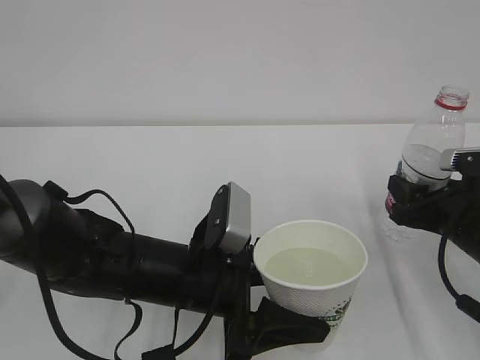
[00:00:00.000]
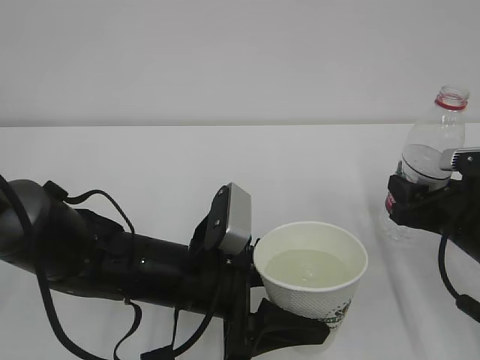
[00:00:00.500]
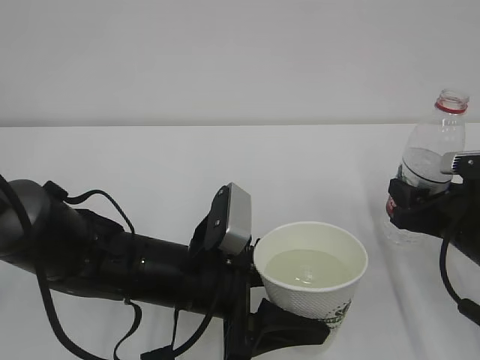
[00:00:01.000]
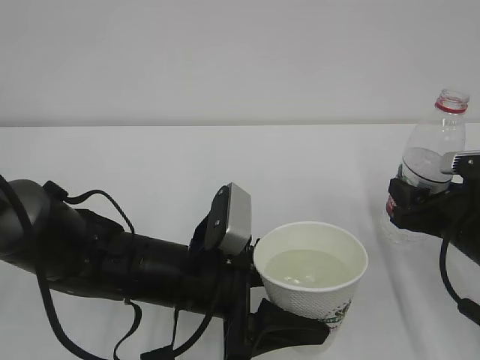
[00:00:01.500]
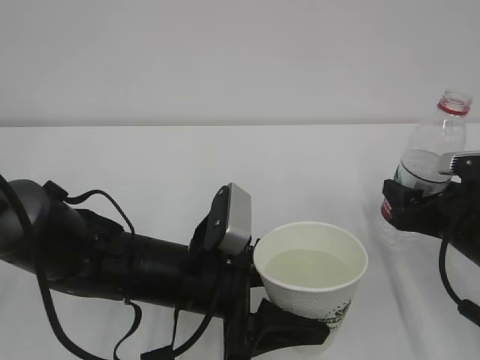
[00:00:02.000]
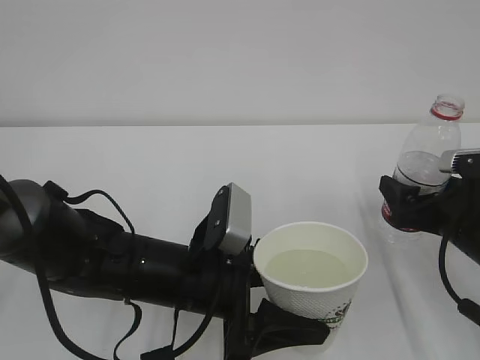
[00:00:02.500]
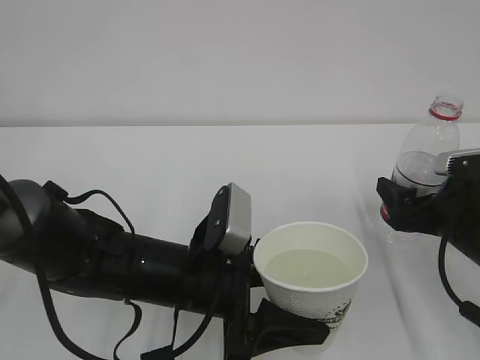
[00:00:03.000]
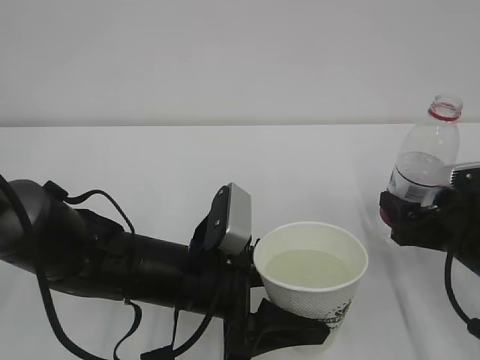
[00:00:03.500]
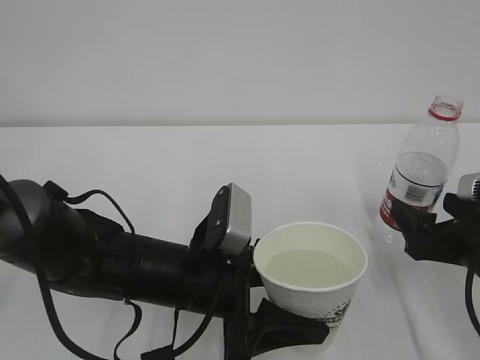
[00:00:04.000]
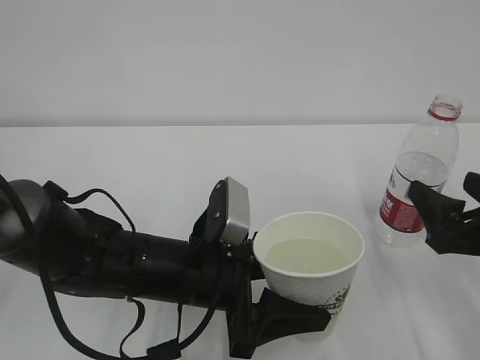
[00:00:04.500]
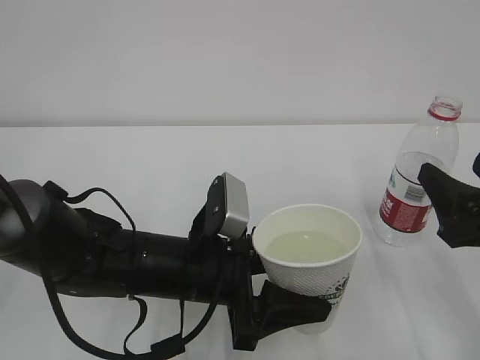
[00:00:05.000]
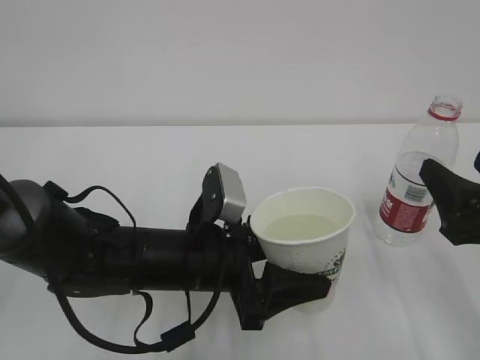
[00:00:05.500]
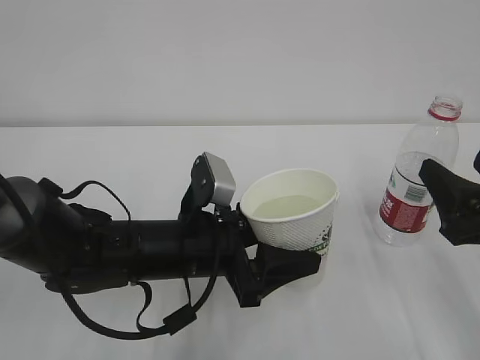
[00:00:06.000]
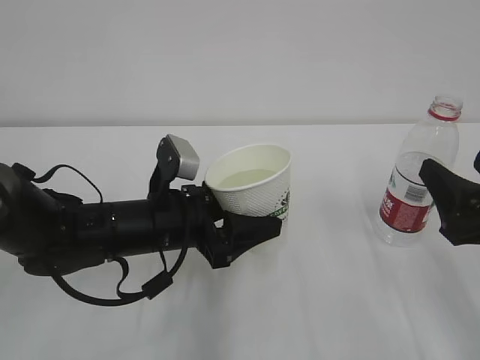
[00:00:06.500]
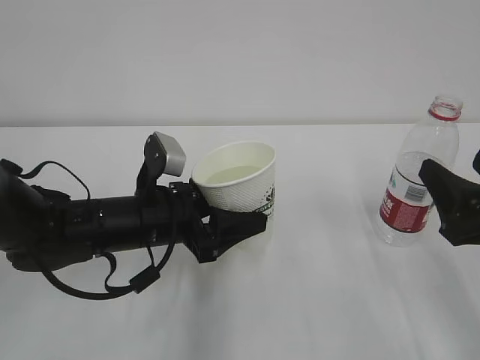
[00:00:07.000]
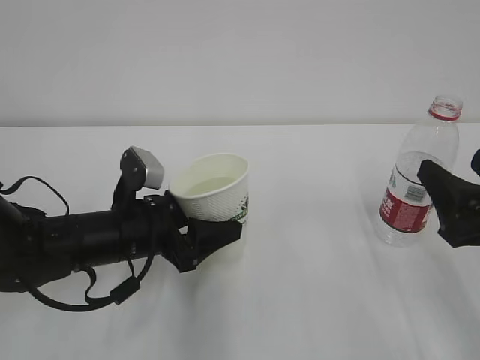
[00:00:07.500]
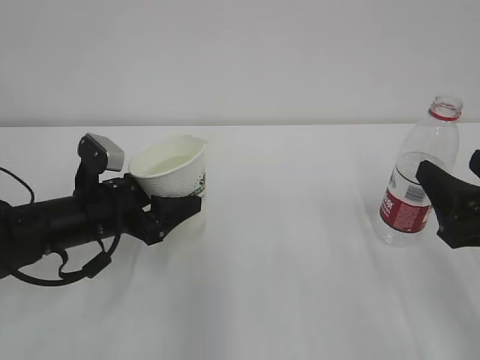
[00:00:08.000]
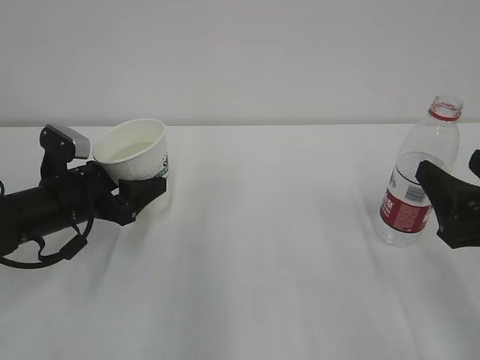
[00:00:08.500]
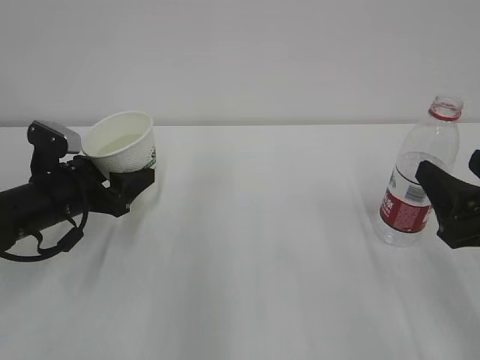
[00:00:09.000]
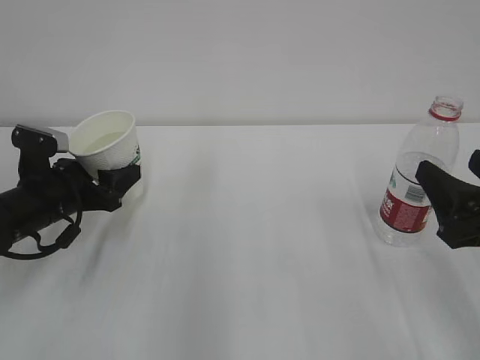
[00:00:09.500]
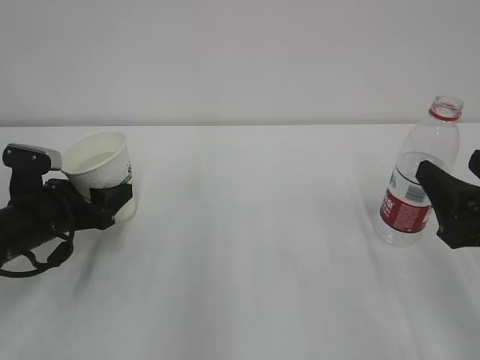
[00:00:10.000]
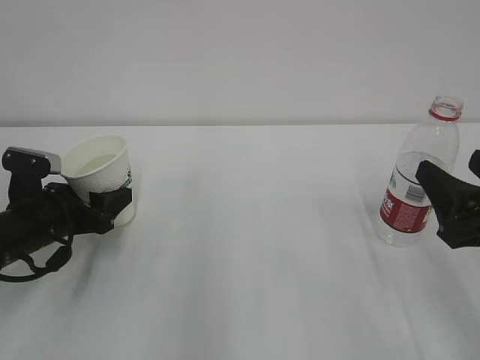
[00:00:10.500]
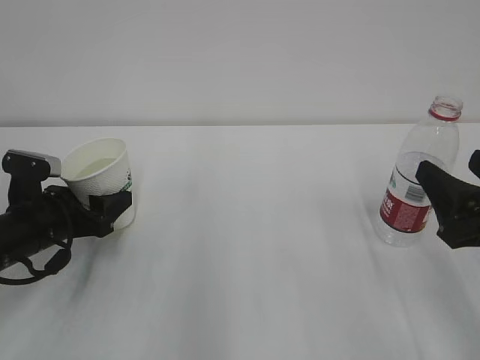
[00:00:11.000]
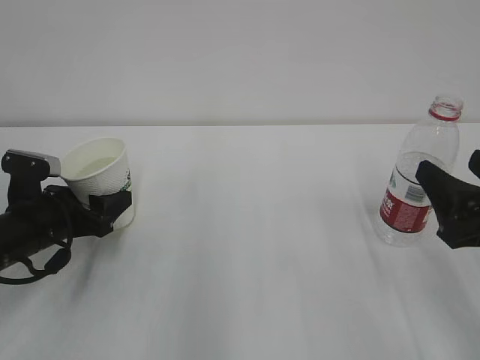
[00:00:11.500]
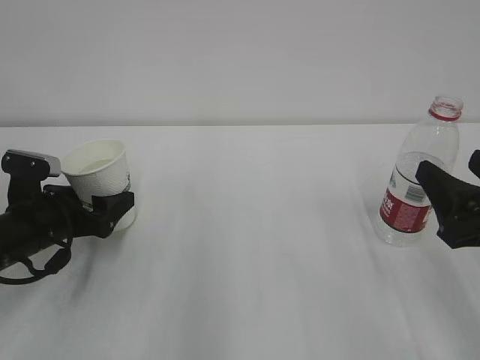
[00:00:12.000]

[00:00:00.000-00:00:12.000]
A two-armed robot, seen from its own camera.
00:00:00.000 to 00:00:02.000: The right gripper opens.
00:00:02.000 to 00:00:04.000: The right gripper opens.
00:00:04.000 to 00:00:06.000: The right gripper travels upward by roughly 5 cm, and closes.
00:00:06.000 to 00:00:08.000: The left gripper goes about 15 cm to the left and forward.
00:00:08.000 to 00:00:10.000: The left gripper is displaced to the left by roughly 5 cm.
00:00:10.000 to 00:00:12.000: Both grippers stay about where they are.

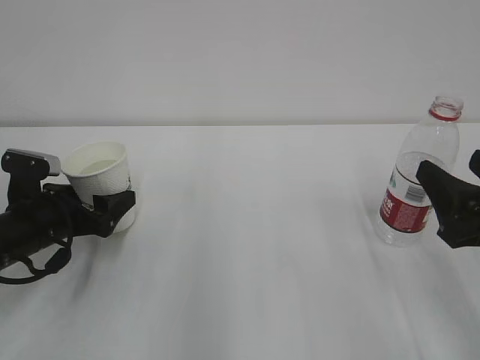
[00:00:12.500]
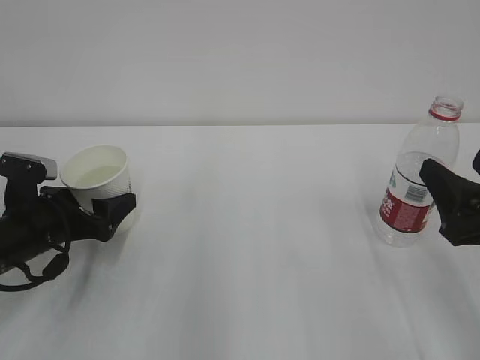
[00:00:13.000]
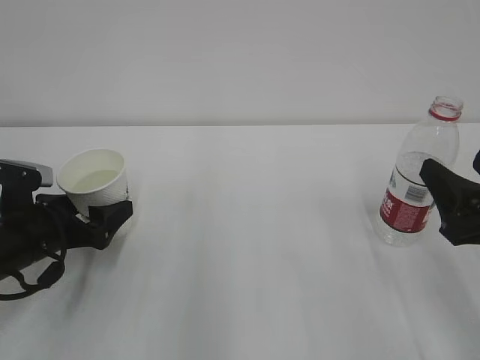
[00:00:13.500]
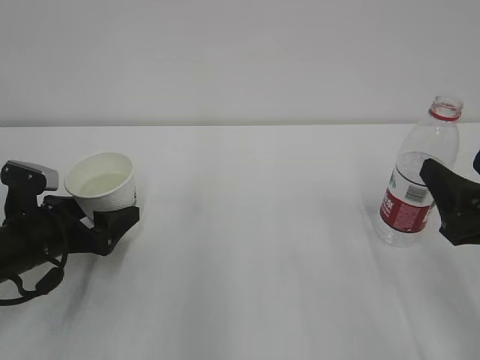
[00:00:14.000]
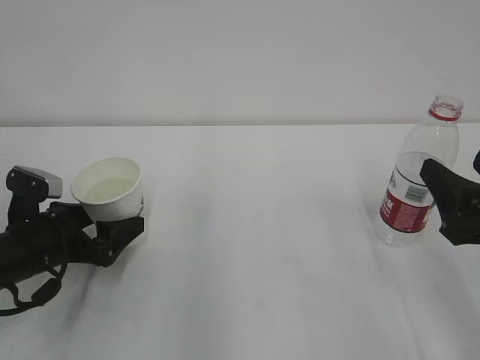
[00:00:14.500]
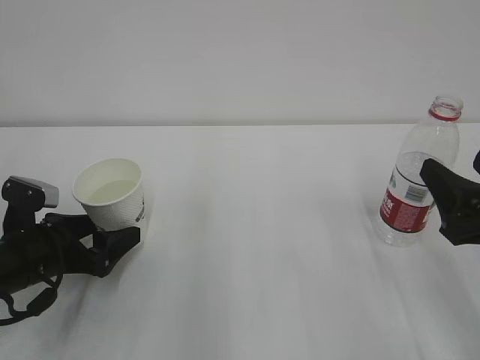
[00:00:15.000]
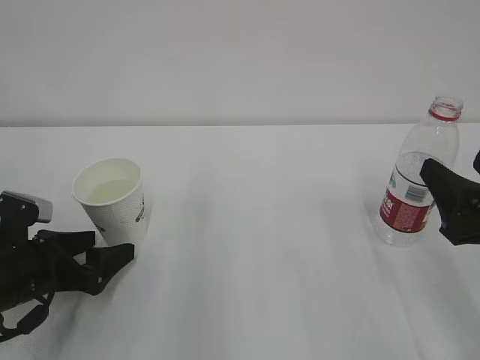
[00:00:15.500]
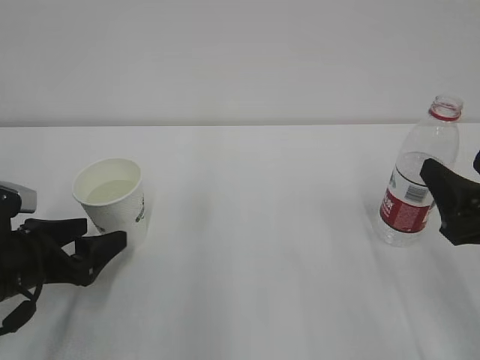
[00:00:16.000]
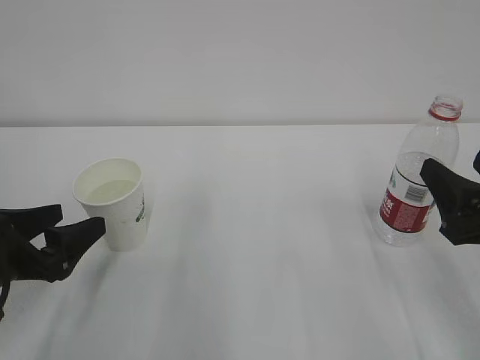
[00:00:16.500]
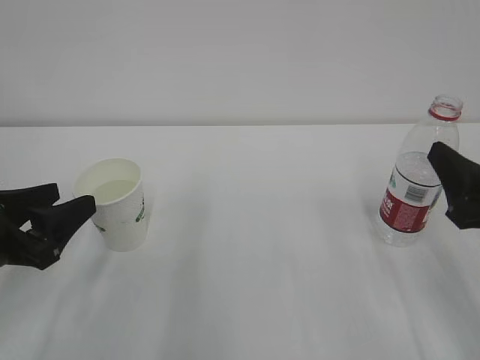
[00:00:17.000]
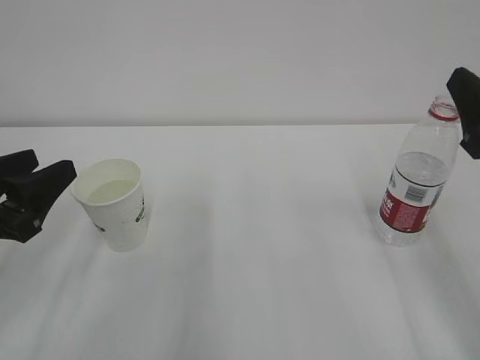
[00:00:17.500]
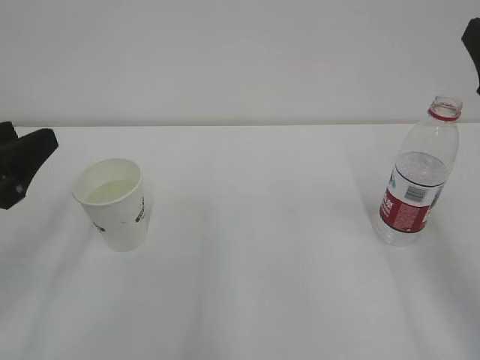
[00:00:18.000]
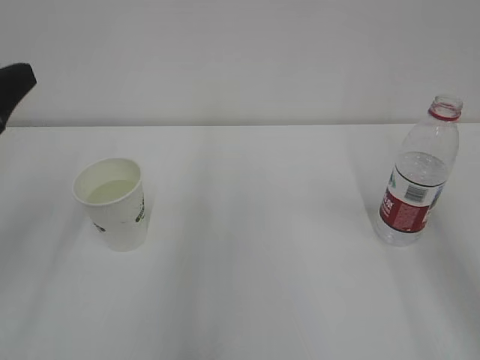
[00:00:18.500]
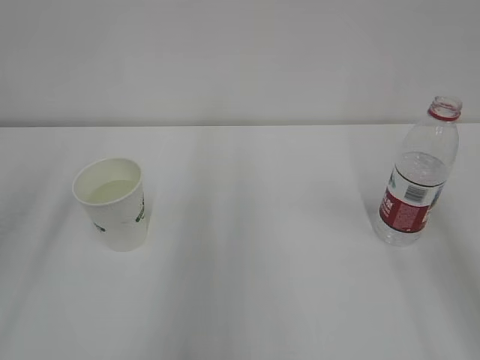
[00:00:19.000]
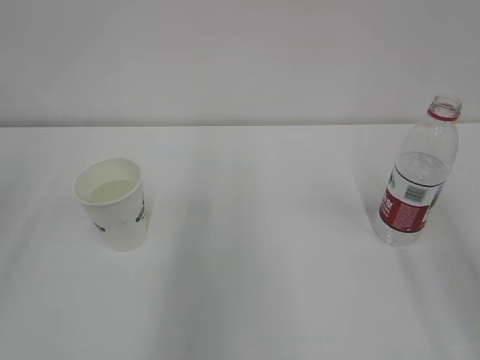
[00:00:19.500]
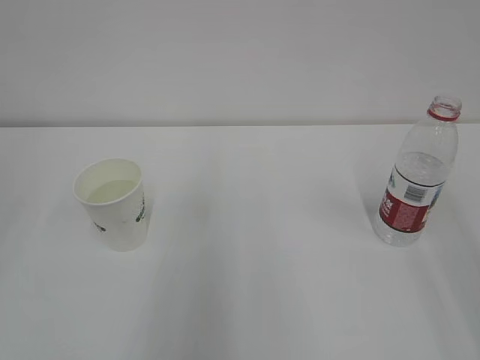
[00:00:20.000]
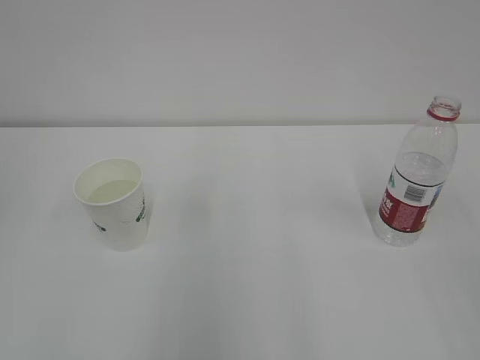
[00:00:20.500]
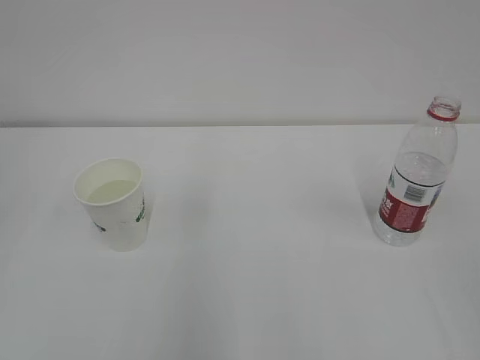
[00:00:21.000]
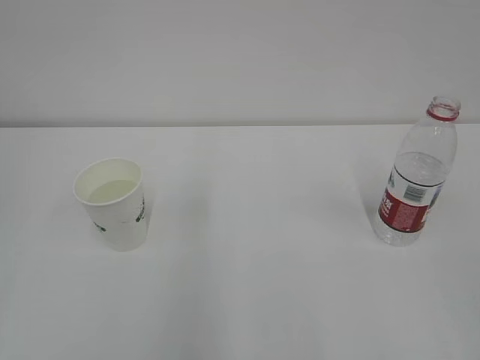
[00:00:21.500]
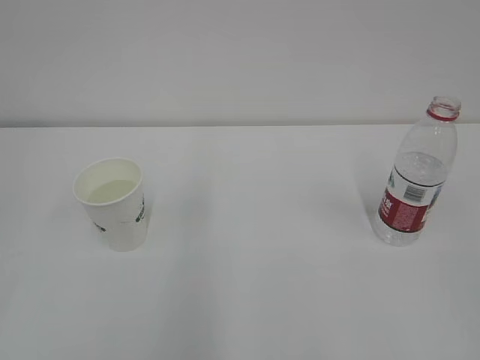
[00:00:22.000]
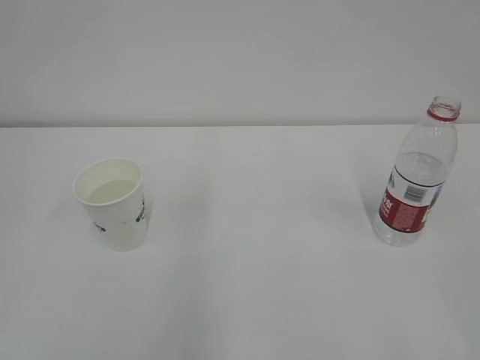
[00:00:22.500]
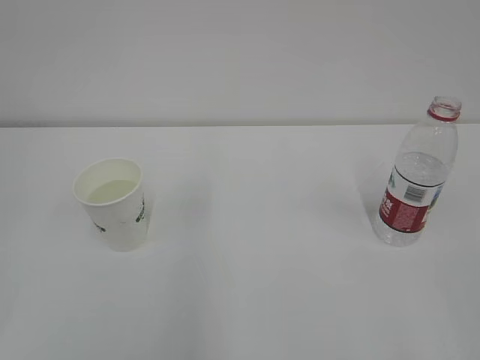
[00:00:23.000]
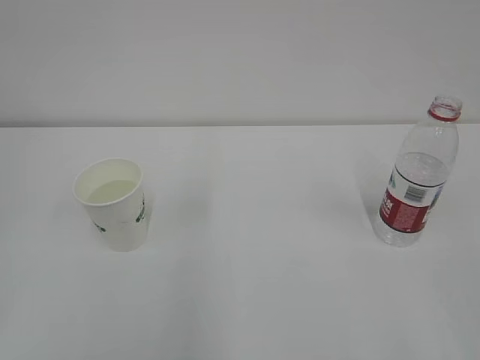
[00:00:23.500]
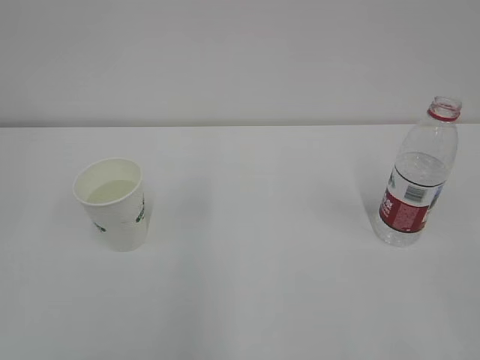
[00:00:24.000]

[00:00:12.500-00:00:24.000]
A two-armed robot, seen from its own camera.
00:00:12.500 to 00:00:14.500: The grippers stay close to where they were, moving slightly.
00:00:14.500 to 00:00:16.500: The left gripper shifts approximately 5 cm backward.
00:00:16.500 to 00:00:18.500: Both grippers move upward, roughly 15 cm. The left gripper closes up.
00:00:18.500 to 00:00:20.000: The left gripper heads backward and upward, covering roughly 20 cm.
